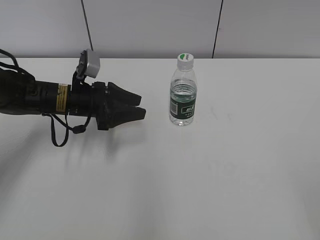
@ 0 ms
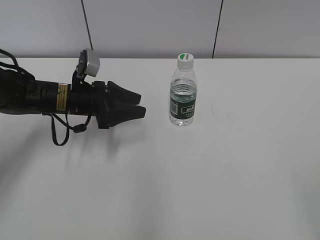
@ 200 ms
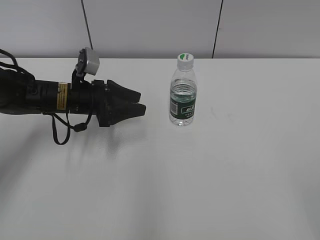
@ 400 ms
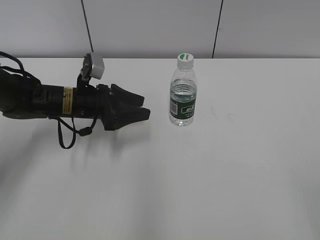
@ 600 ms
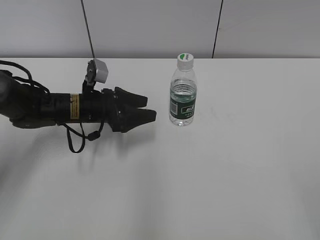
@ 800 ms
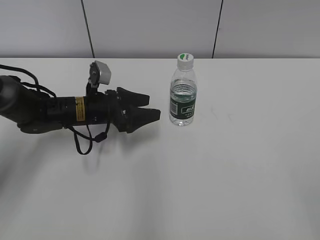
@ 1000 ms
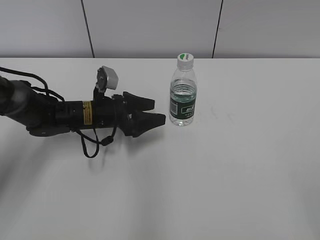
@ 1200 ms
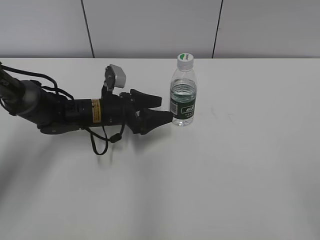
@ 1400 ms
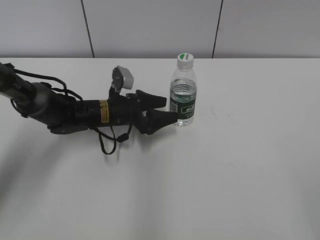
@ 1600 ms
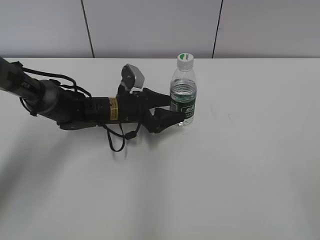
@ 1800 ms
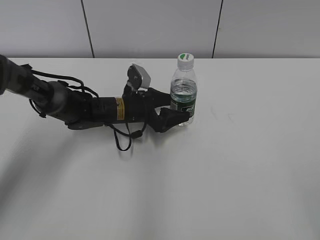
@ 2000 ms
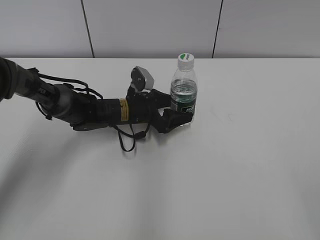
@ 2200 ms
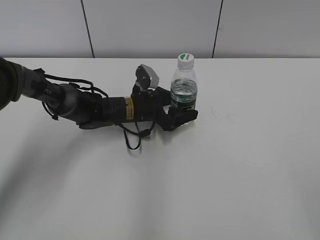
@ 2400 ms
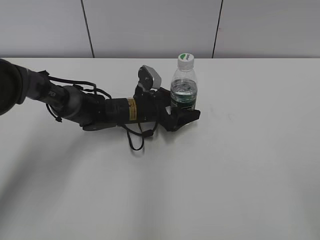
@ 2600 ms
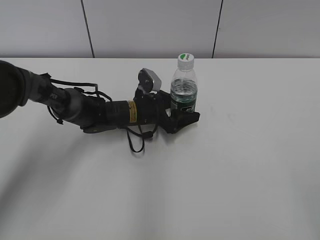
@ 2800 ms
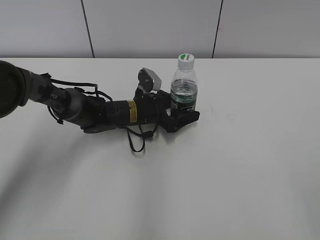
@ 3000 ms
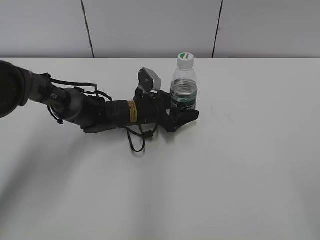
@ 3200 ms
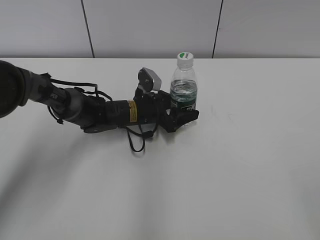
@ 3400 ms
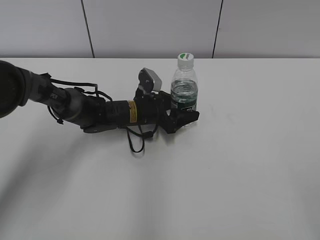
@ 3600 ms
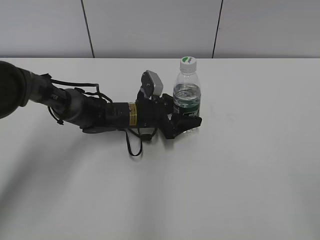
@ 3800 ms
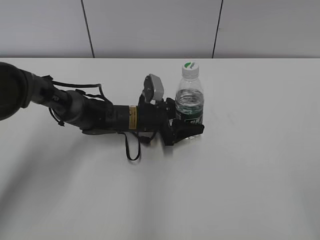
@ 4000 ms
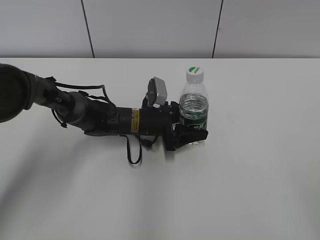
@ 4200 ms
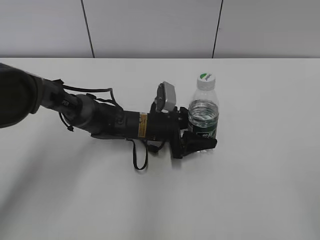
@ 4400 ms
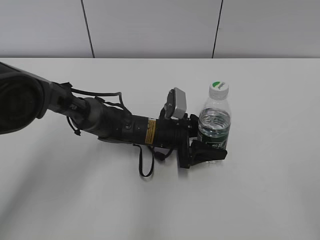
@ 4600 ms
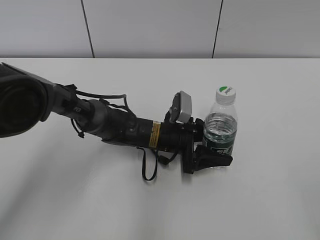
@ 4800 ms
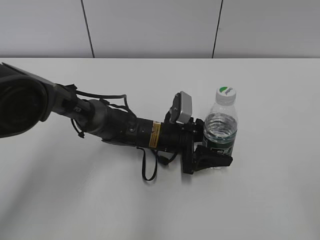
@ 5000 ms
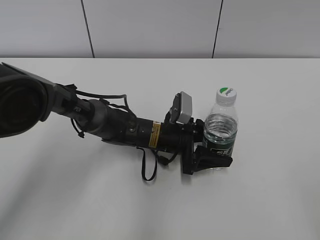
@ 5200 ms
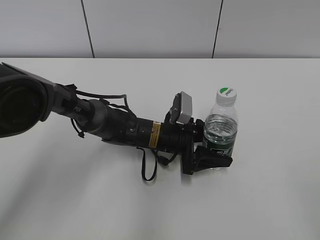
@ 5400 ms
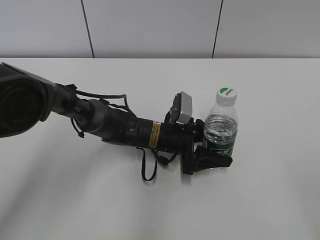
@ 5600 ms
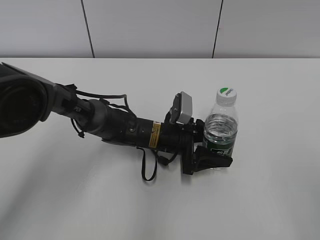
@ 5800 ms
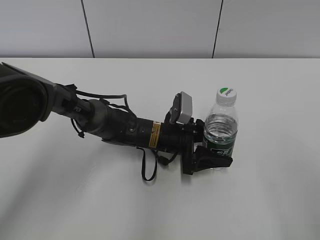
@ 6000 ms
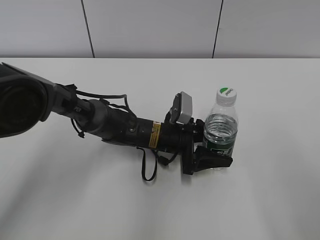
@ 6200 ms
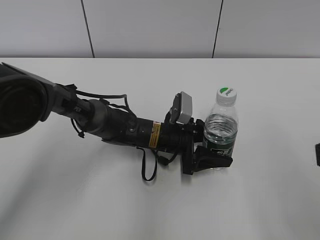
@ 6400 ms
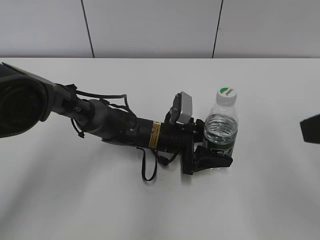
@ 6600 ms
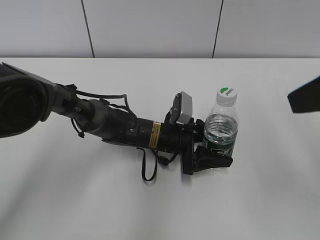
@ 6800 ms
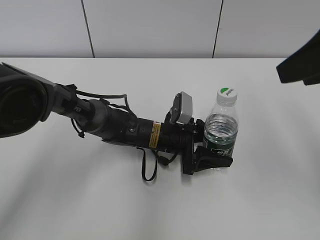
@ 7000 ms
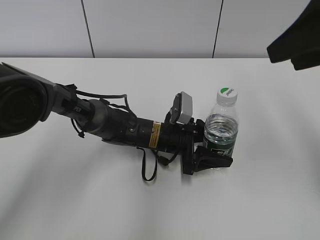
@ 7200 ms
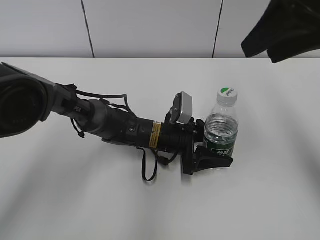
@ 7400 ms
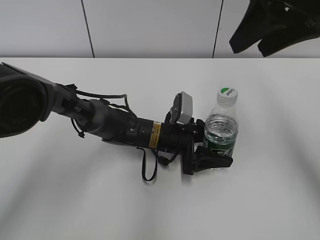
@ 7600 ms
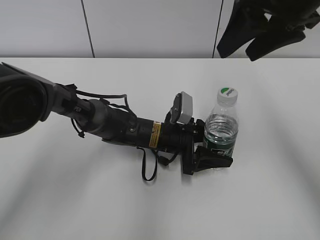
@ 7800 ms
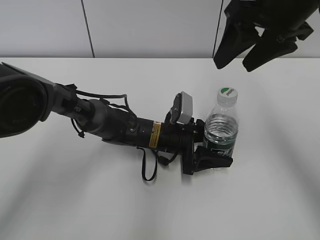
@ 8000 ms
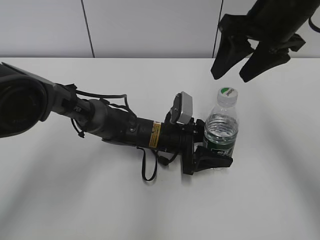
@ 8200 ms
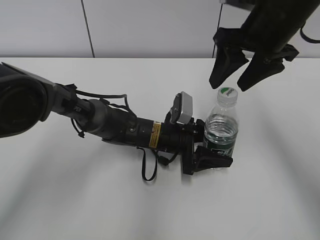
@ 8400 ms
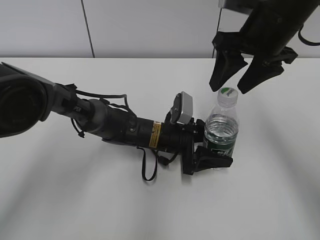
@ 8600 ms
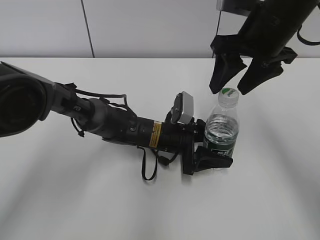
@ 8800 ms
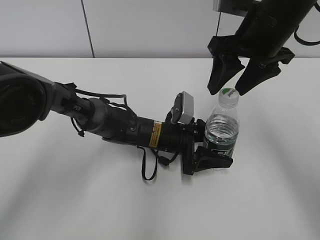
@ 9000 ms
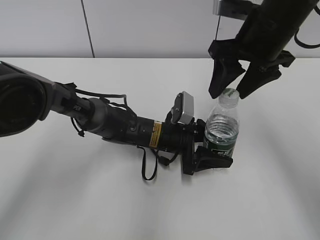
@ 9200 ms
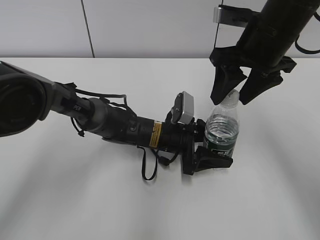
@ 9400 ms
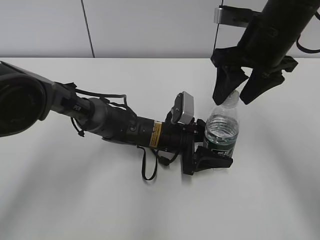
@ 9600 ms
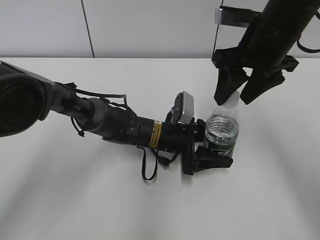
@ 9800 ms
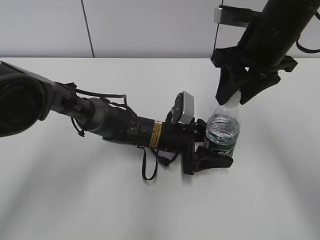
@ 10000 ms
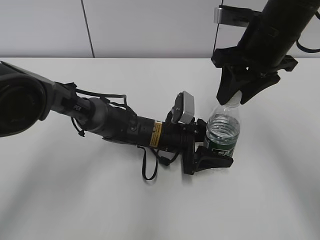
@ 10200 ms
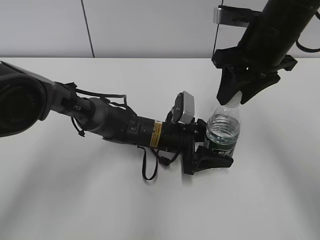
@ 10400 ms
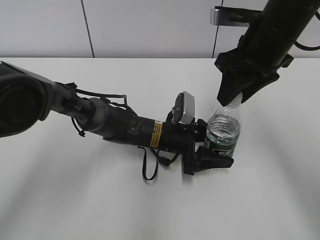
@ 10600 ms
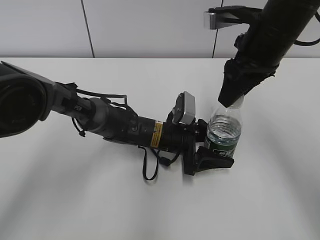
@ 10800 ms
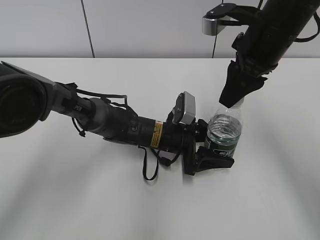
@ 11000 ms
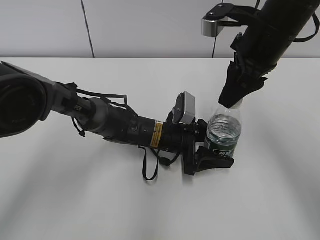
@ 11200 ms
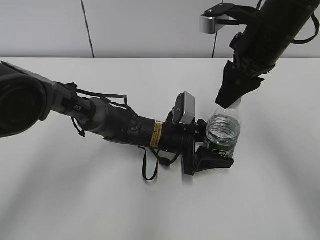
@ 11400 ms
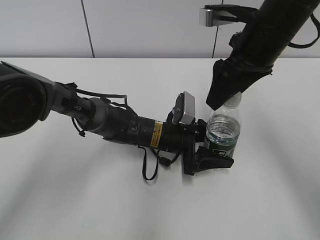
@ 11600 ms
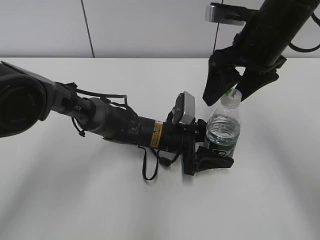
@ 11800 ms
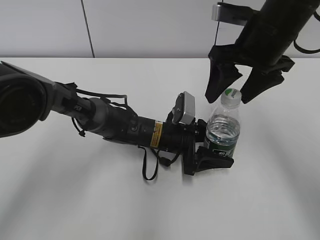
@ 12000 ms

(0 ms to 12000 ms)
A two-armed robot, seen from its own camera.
Step, 0 ms - 3400 ms: Grab the C'estbon with the left hand.
Step, 3600 ms - 5200 ms: Move the C'estbon to the right with the left hand.
0 ms - 1600 ms: The left gripper goes roughly 10 cm to the right and downward, and opens.
1600 ms - 3000 ms: The left gripper shifts about 5 cm to the right.
3000 ms - 4400 ms: The grippers make only small movements.
4400 ms - 6000 ms: The right gripper travels forward by some 5 cm.
6000 ms - 7600 ms: The right gripper shifts about 25 cm forward.
7600 ms - 9000 ms: The right gripper moves downward, roughly 10 cm.
9000 ms - 10400 ms: The right gripper closes up.
10400 ms - 12000 ms: The right gripper opens.

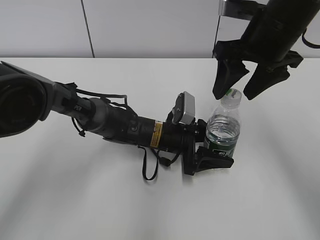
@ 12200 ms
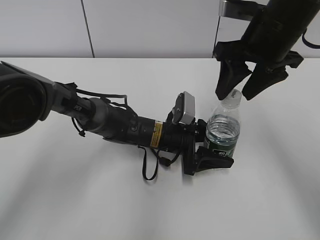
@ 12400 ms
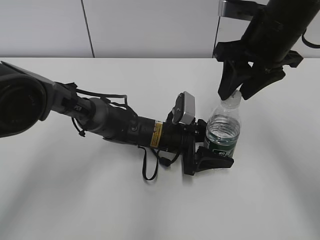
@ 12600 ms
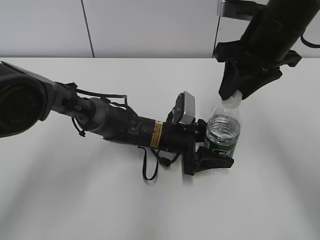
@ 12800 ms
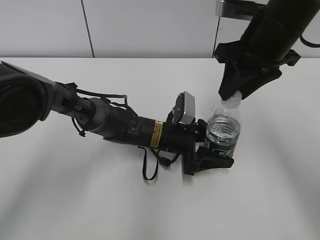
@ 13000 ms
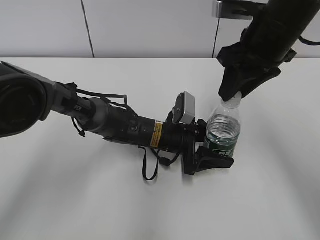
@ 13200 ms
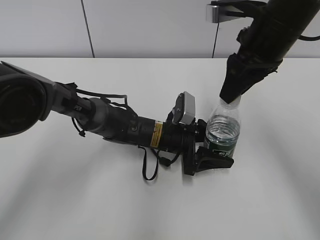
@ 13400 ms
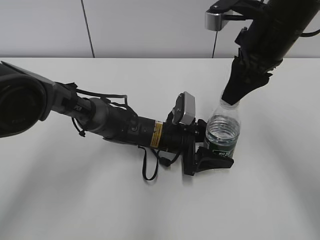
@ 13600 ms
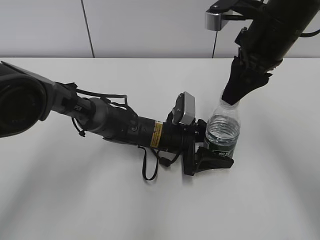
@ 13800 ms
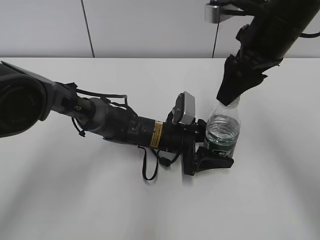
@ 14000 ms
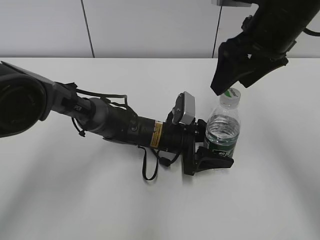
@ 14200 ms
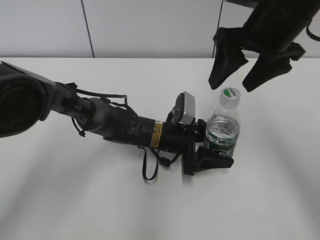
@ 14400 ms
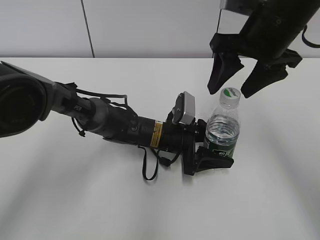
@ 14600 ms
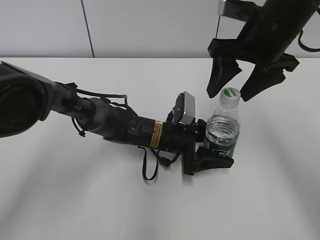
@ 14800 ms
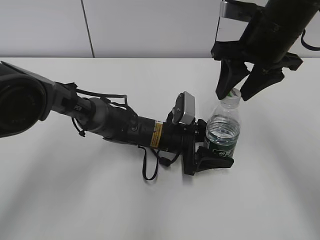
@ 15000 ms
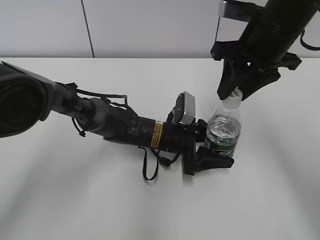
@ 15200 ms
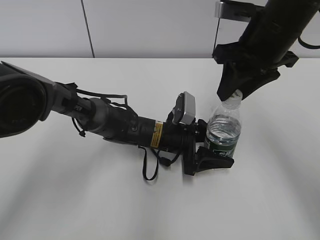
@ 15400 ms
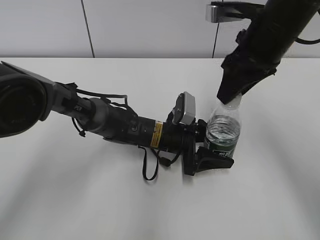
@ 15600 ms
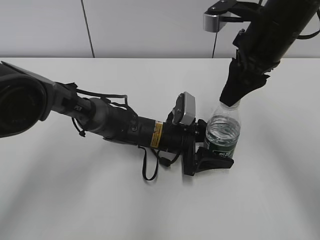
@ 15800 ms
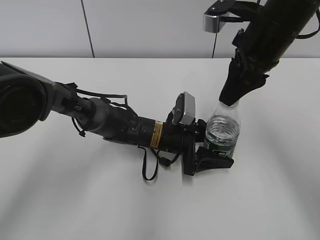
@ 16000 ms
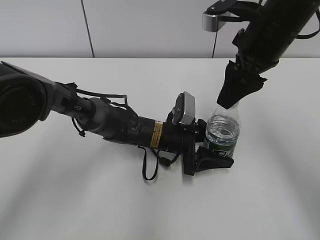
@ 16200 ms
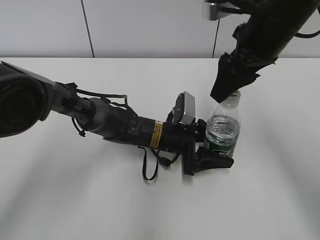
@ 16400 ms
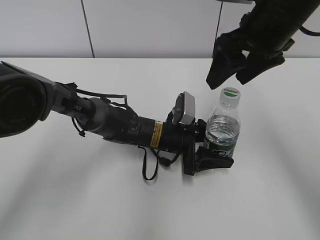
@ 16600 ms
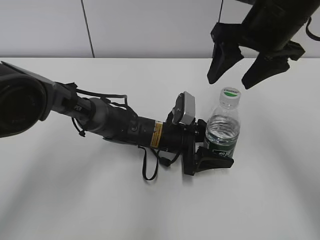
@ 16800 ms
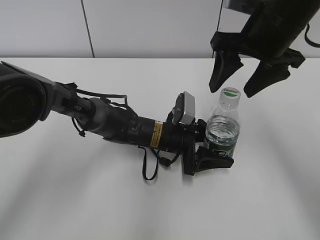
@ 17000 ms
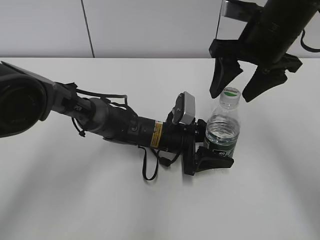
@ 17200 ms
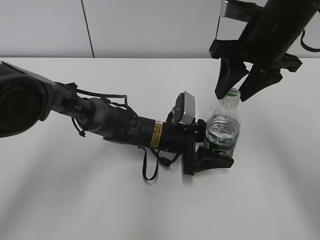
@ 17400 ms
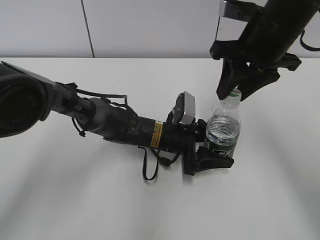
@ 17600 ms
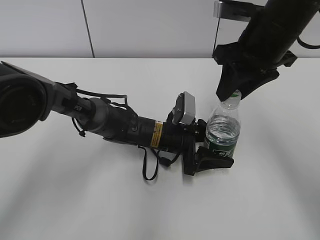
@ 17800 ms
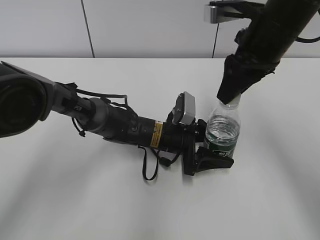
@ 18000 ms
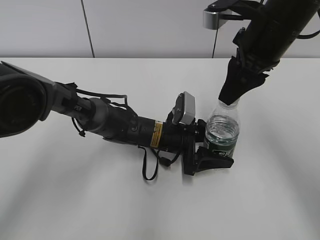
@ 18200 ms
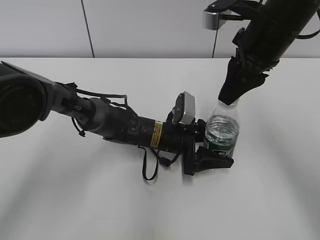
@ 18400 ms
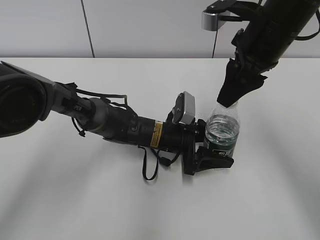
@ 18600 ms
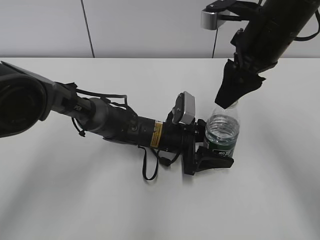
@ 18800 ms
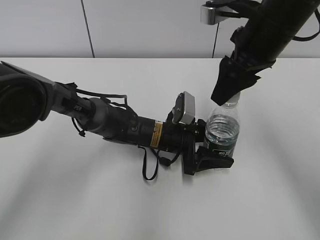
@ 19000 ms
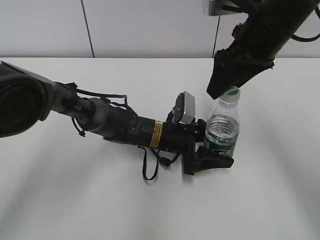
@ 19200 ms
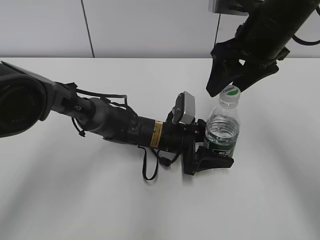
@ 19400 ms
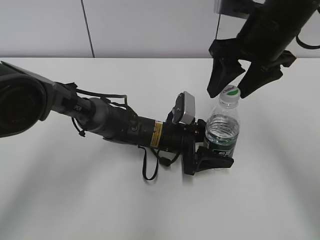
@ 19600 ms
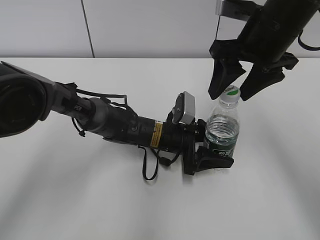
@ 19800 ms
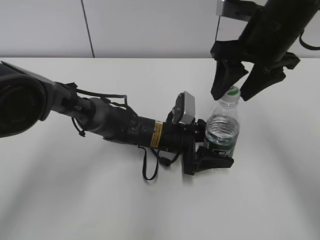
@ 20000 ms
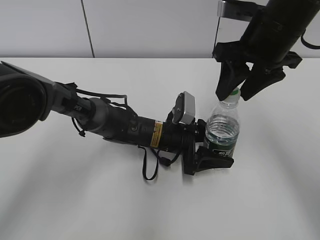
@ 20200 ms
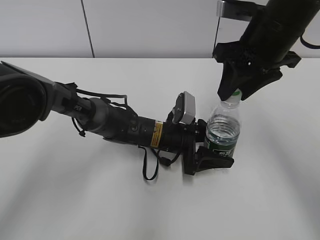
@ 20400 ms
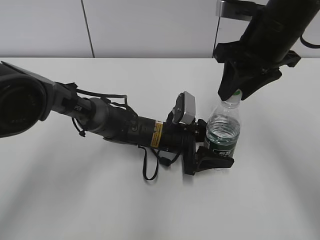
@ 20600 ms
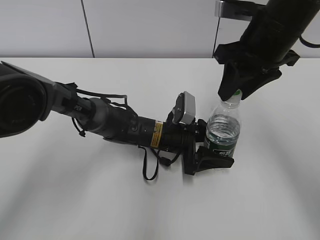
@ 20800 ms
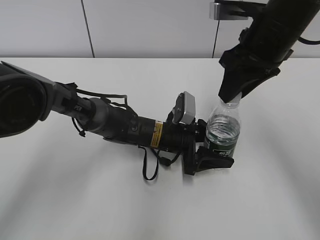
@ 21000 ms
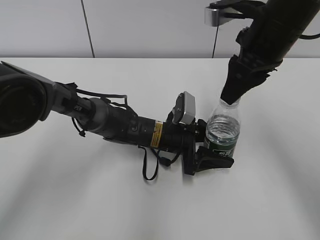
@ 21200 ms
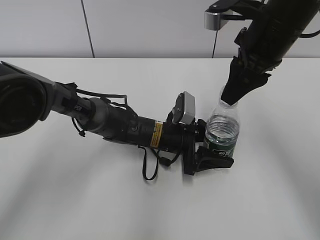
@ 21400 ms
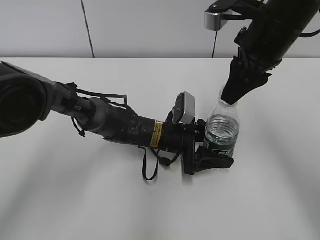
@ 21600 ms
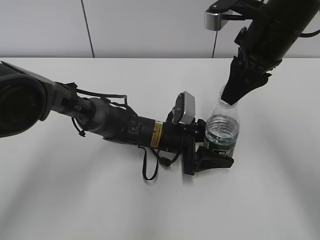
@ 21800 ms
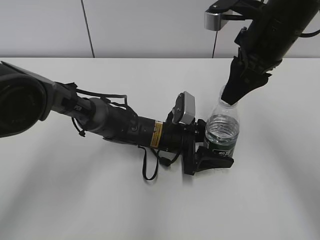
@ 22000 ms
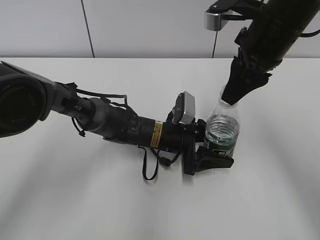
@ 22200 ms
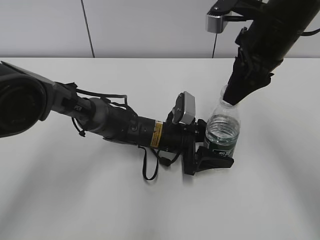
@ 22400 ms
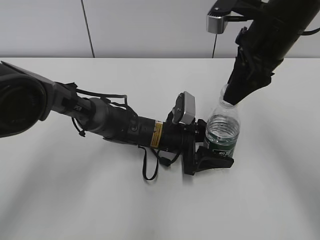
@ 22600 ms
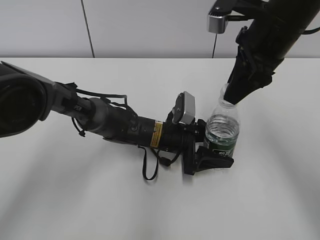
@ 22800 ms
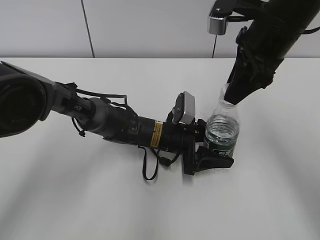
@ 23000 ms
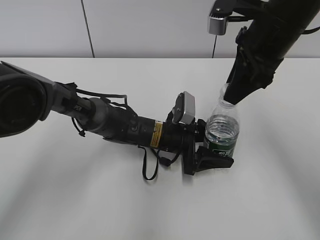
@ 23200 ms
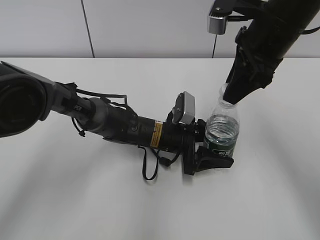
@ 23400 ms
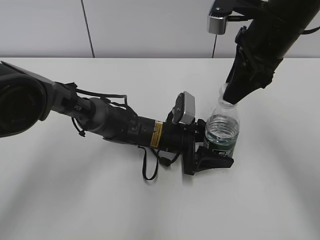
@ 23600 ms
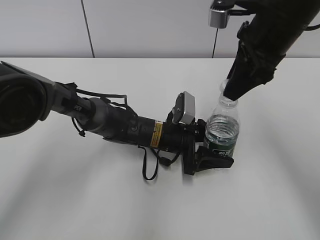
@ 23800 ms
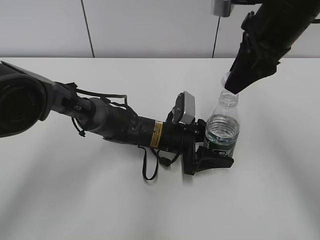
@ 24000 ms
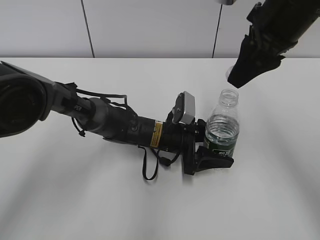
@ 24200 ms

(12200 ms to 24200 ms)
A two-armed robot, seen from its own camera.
Step, 12200 ms - 24000 ms: Twist the bottle cap with the right hand.
12200 ms - 13800 ms: The right gripper closes.
13800 ms - 15200 ms: The right gripper opens, then closes once more.
15200 ms - 16600 ms: The right gripper opens up.
16600 ms - 18200 ms: The right gripper closes up.
18200 ms - 19800 ms: The right gripper opens up.
19800 ms - 21200 ms: The right gripper closes its fingers.
21200 ms - 22600 ms: There are only small adjustments of the grippers.
22600 ms - 24200 ms: The grippers stay close to where they were, moving slightly.
